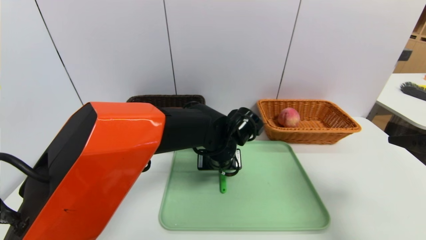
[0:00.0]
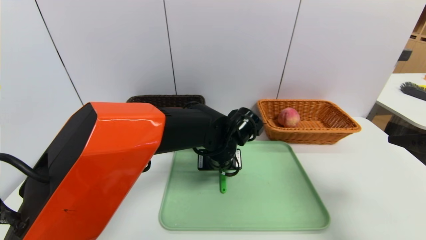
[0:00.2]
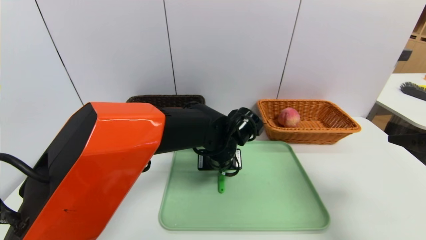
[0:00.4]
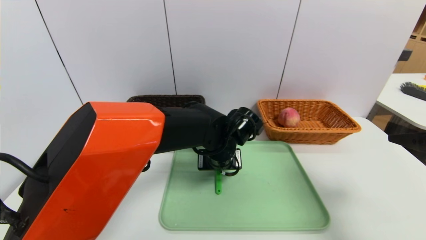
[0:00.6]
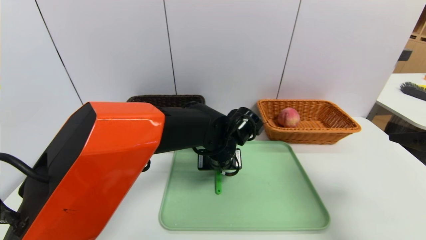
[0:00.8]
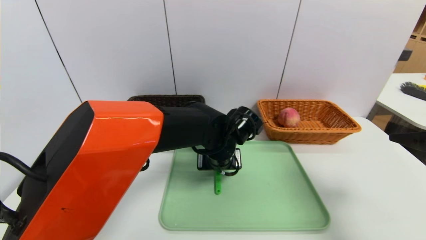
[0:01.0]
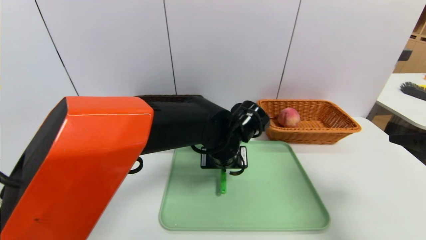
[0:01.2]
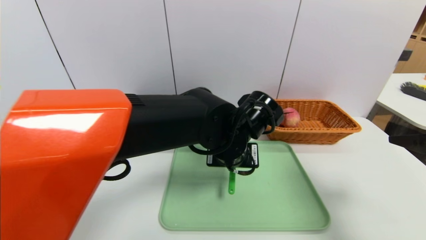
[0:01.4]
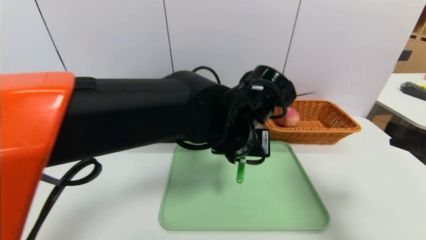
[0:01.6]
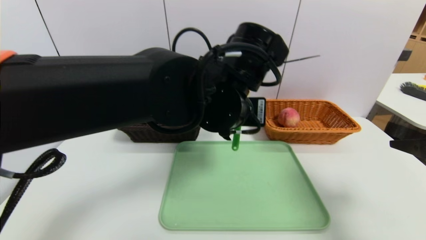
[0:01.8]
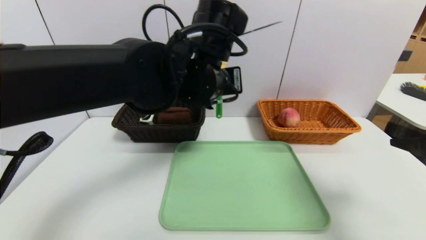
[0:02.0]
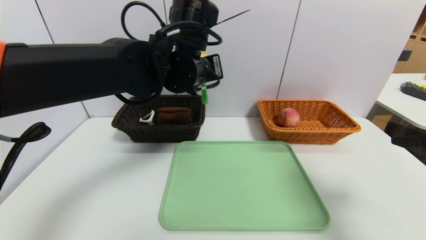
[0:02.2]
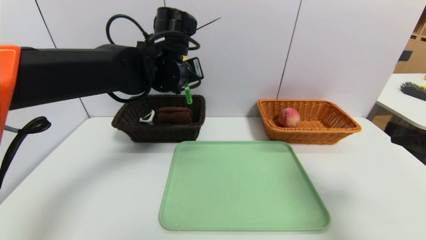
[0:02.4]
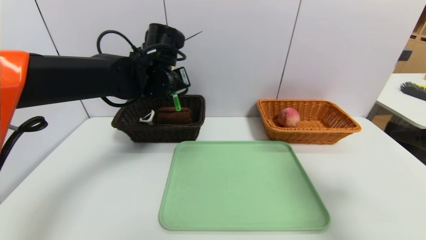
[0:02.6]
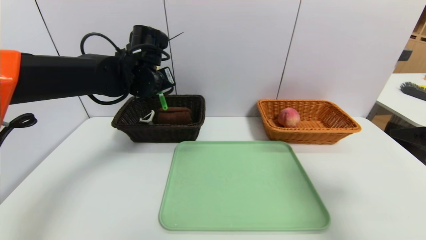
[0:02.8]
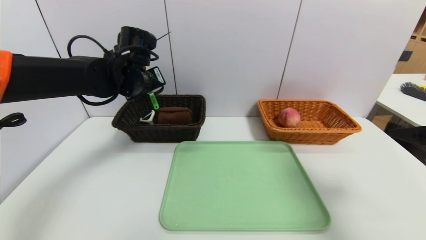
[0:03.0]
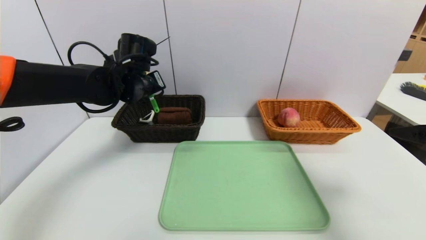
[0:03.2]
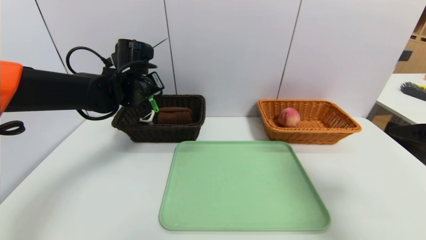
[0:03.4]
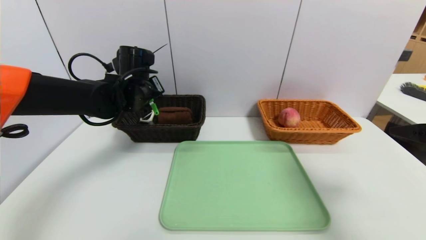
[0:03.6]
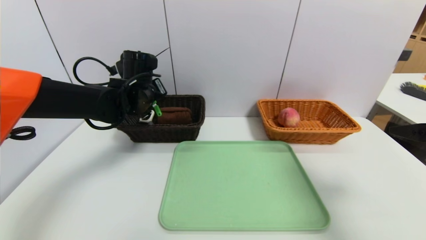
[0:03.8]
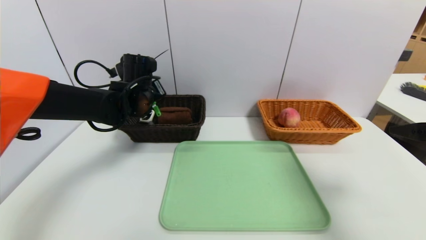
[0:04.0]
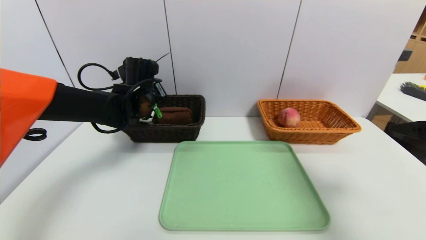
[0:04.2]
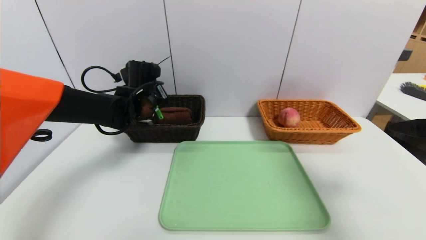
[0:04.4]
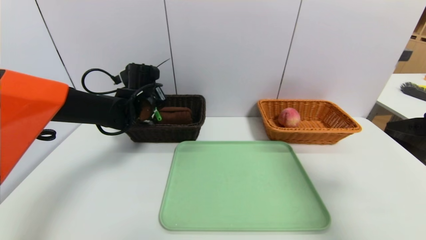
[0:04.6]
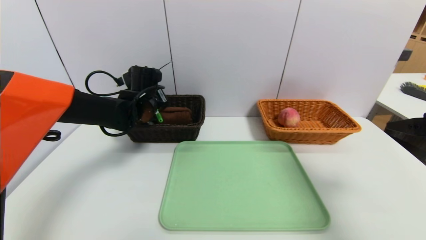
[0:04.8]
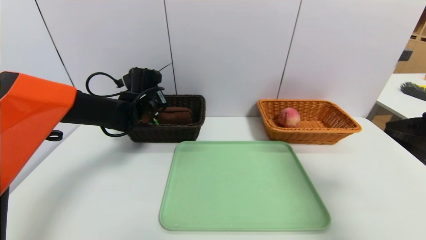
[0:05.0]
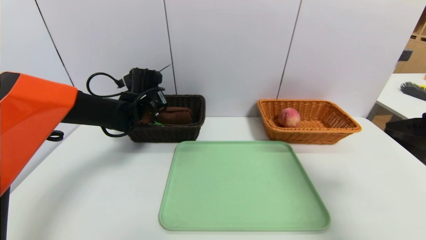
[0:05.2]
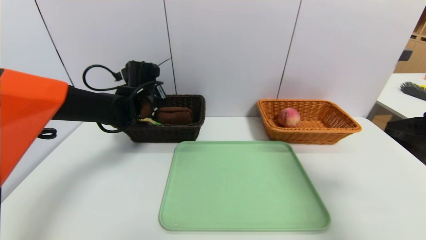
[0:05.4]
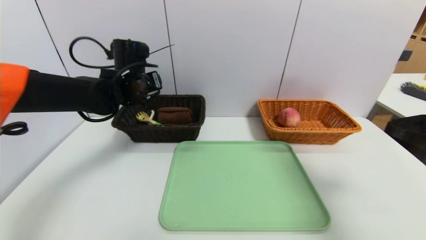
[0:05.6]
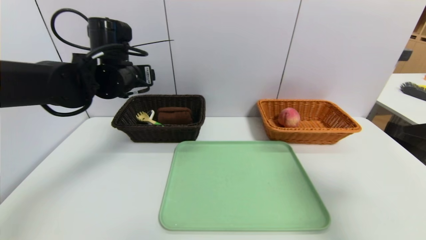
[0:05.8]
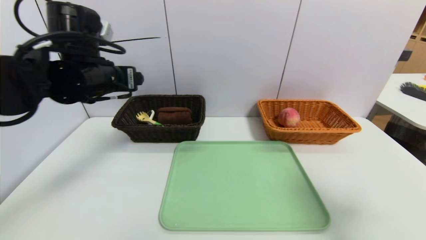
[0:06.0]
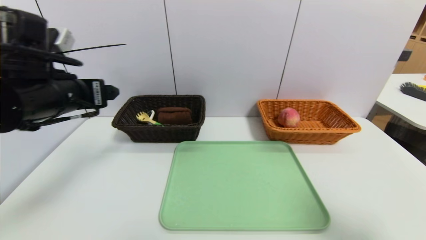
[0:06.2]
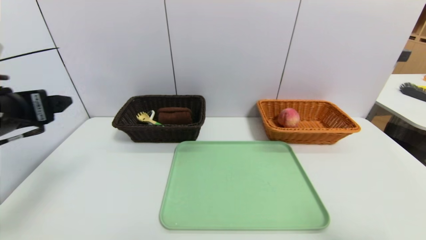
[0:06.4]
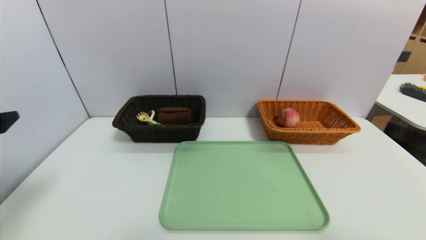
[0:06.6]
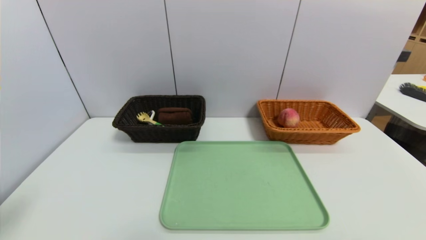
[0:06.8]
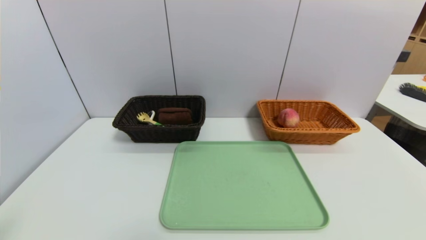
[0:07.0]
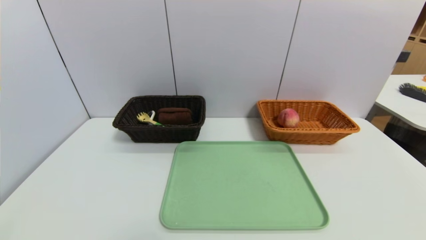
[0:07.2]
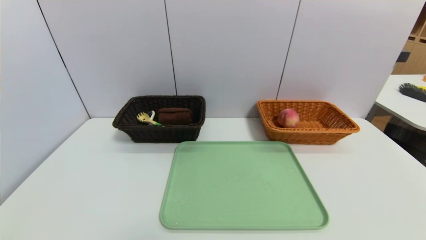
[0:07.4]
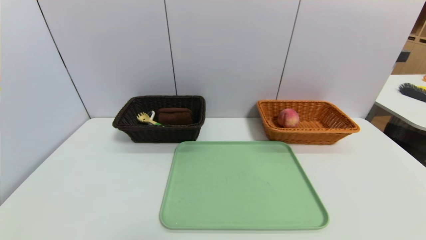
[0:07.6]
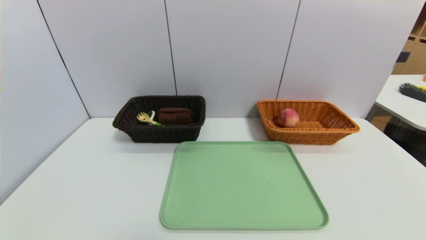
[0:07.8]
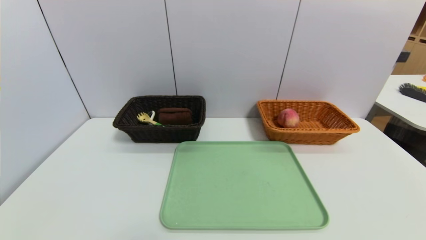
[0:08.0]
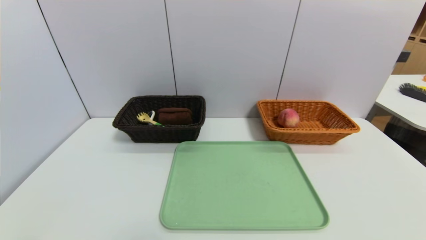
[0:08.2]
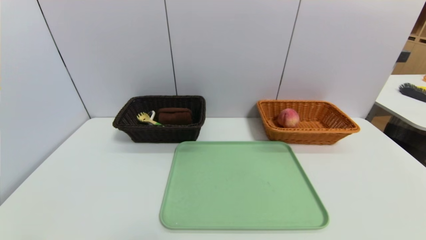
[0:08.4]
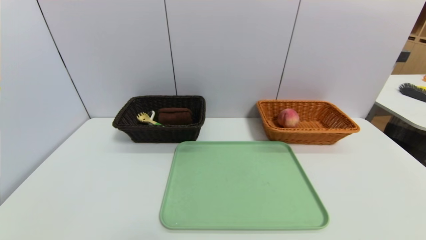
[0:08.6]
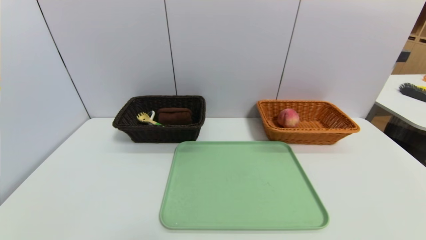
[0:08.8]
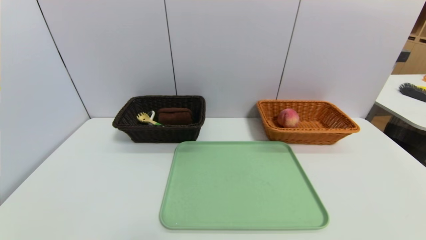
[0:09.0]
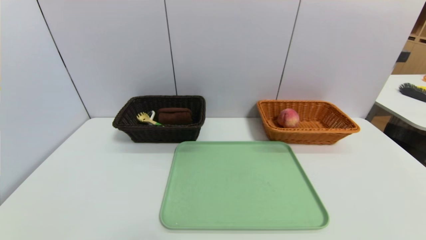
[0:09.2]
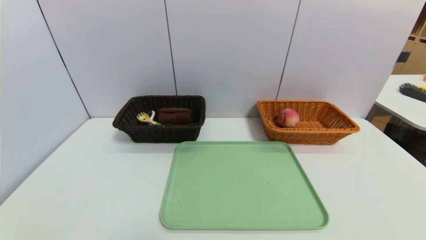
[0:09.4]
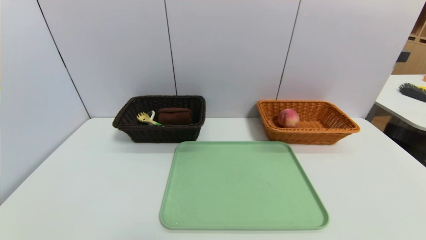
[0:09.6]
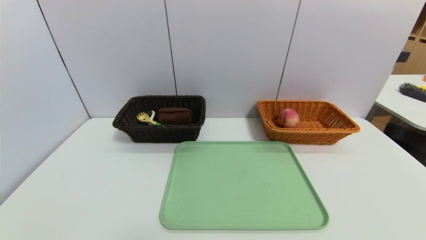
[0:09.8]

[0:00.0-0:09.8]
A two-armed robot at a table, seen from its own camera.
Task of the whole recording: place the food in the right basket with the right gripper, and place the non food items in the left basket with the left gripper.
Step, 0:00.0 to 0:05.2: Grasp the back scratcher and put it in the left basket.
0:00.0 to 0:01.4: The left gripper travels upward by approximately 5 cm, and closes up.
0:01.4 to 0:02.8: The left gripper shifts roughly 20 cm to the left and forward.
0:02.8 to 0:04.2: The left gripper travels downward by roughly 5 cm.
0:04.2 to 0:05.6: The left gripper opens.
0:05.6 to 0:07.0: The left gripper shifts some 40 cm backward. Meanwhile the right gripper is displaced backward by roughly 20 cm.

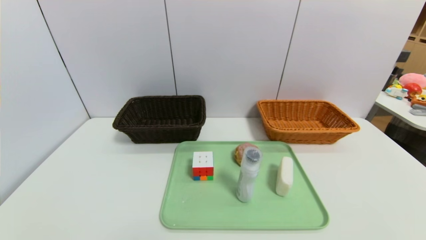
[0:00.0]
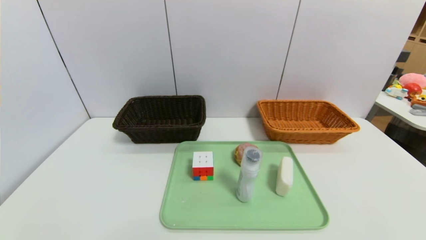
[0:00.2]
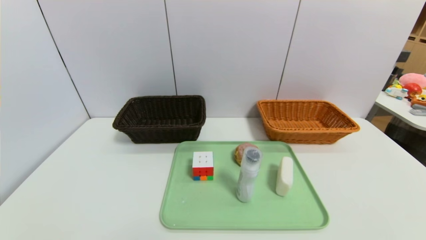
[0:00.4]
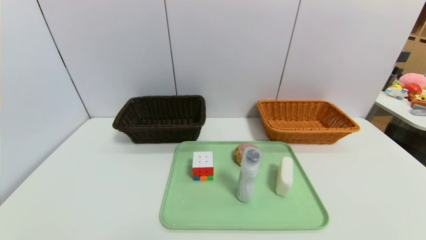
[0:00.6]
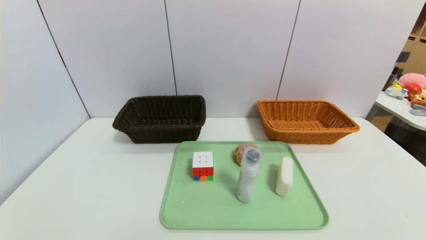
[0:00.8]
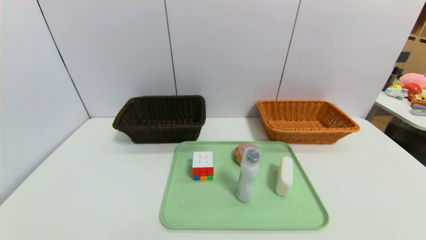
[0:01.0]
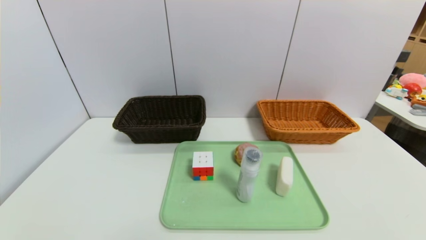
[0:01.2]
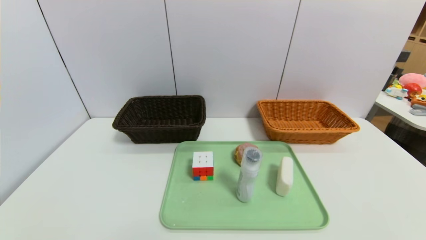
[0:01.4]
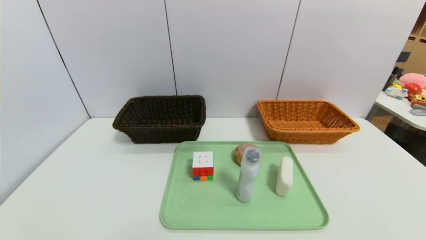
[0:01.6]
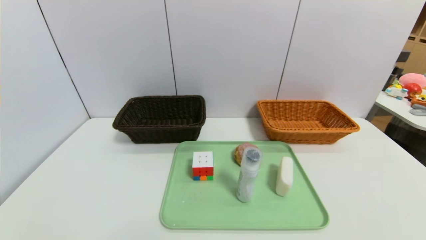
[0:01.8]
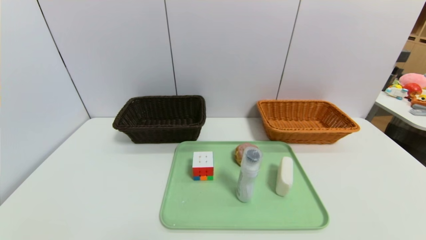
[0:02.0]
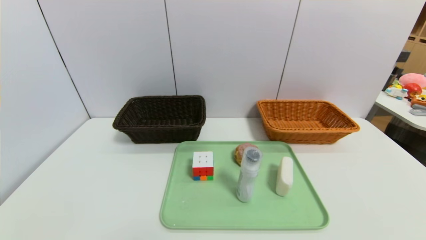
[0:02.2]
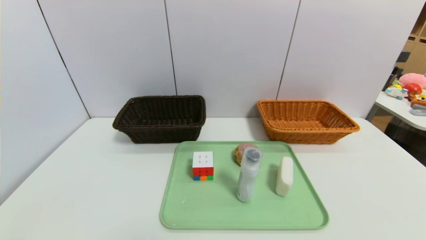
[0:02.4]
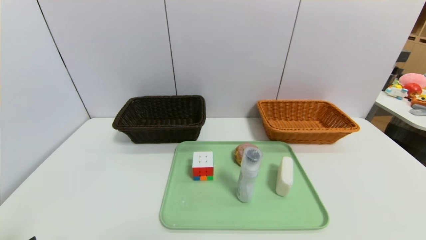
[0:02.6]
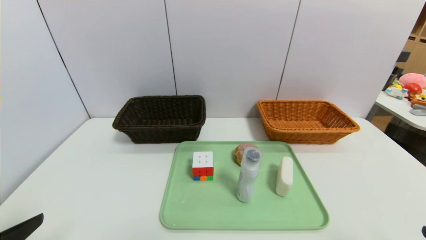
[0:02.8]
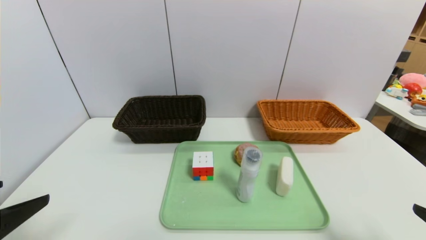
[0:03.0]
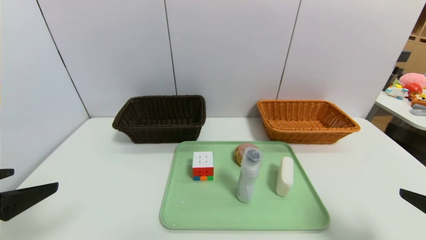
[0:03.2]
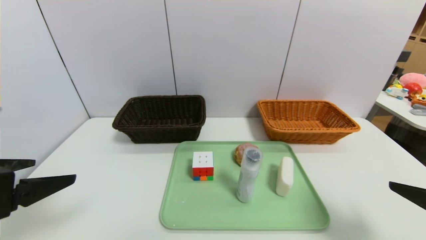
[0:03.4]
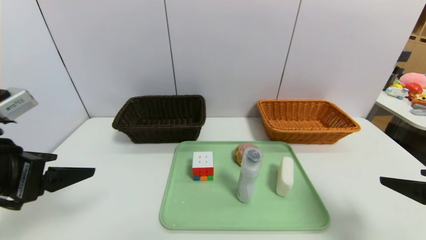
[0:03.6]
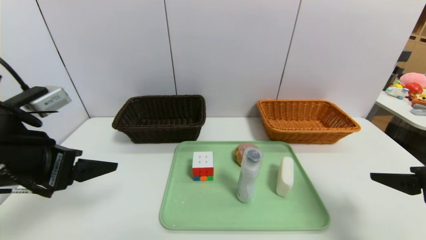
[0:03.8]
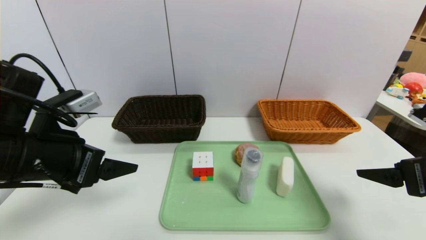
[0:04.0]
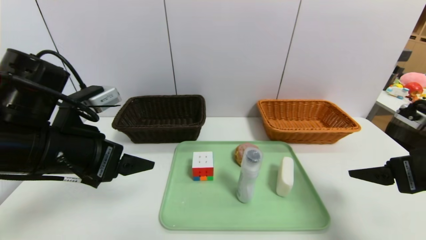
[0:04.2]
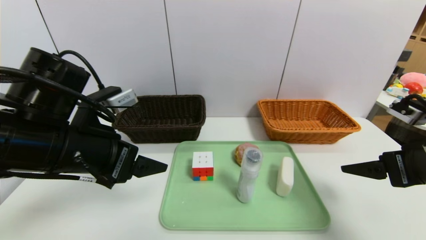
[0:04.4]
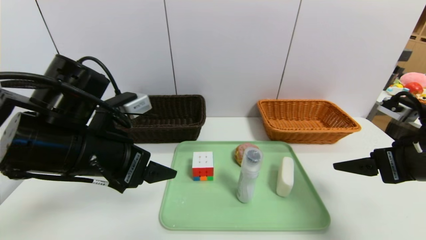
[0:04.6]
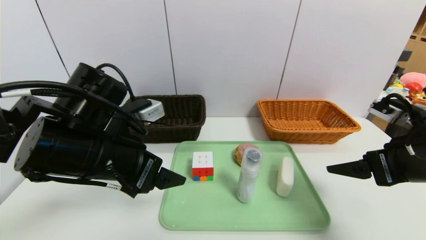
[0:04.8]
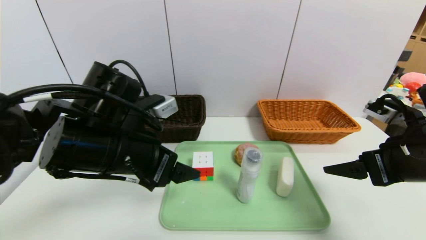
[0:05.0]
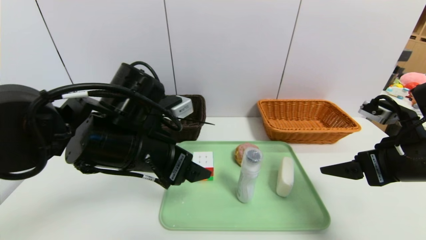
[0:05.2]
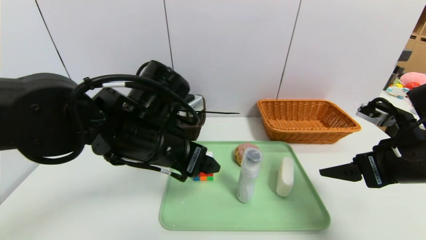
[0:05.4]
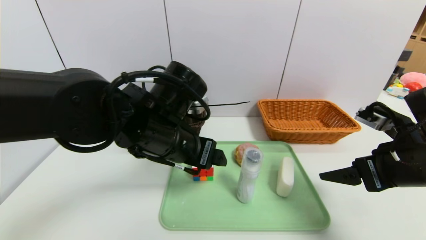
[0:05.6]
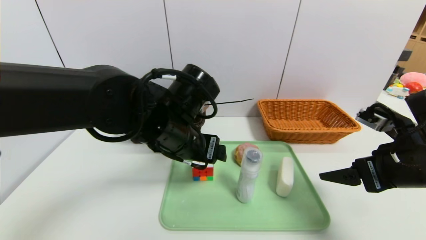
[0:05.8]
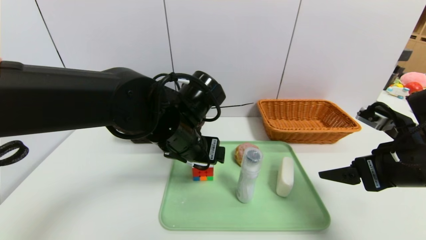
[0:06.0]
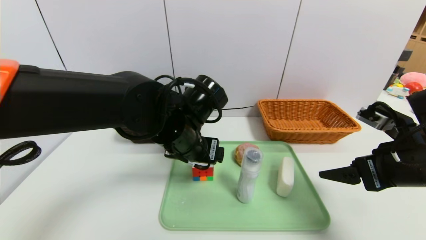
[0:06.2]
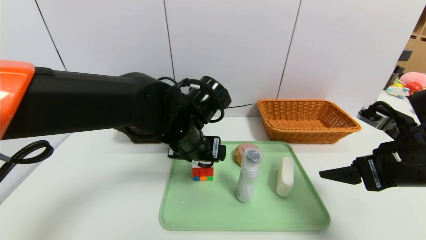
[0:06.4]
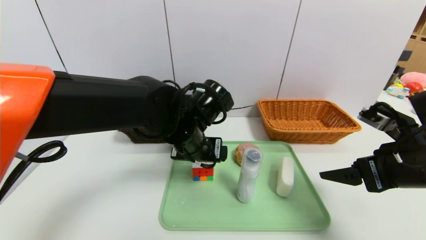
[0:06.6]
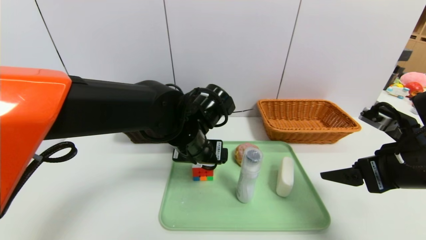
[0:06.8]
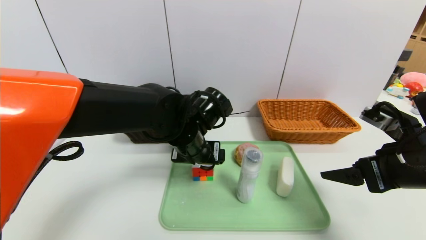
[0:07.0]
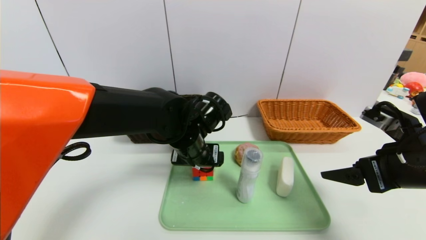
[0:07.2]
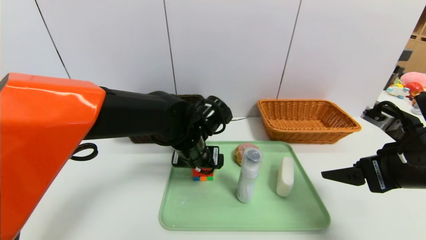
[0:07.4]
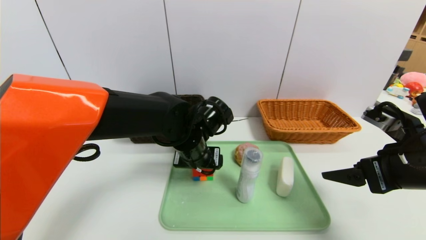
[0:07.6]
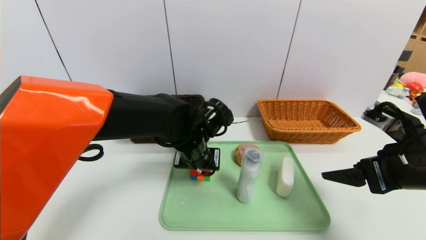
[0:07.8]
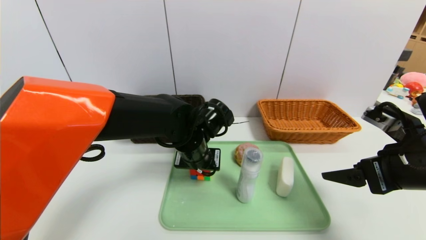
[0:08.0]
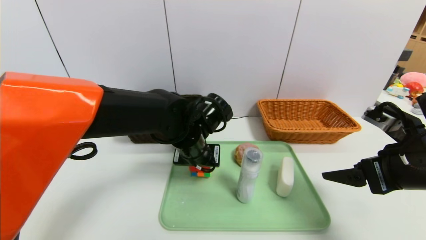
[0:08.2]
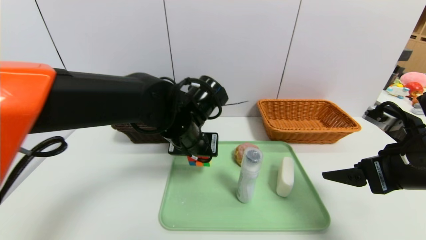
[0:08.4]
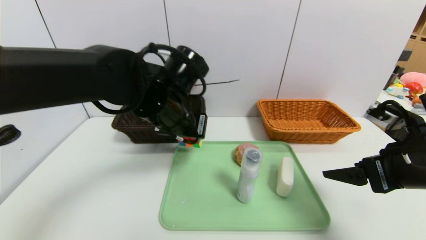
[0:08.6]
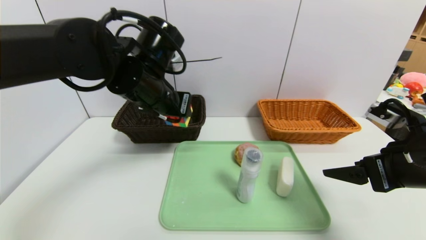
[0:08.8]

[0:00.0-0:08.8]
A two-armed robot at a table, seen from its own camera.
Task of the whole recording: place the food in the right basket with the right gripper, and place the non food items in the left basket with the left gripper.
0:00.0 to 0:01.4: Both grippers stay about where they are.
0:01.4 to 0:03.0: The left gripper shifts about 20 cm upward and forward.
0:03.0 to 0:04.4: The left gripper travels forward and to the right by approximately 15 cm. Meanwhile the right gripper moves forward, some 15 cm.
0:04.4 to 0:05.8: The left gripper is displaced to the right and forward by about 15 cm.
0:05.8 to 0:07.4: The left gripper is displaced downward by approximately 5 cm.
0:07.4 to 0:08.8: The left gripper shifts some 15 cm upward and to the left, and closes up.
